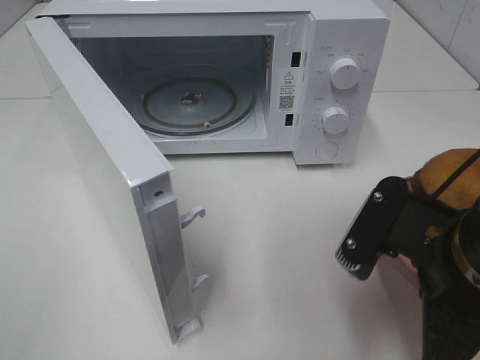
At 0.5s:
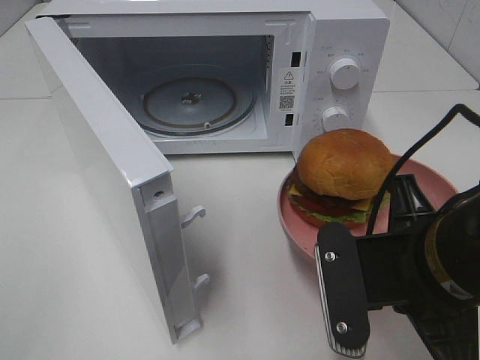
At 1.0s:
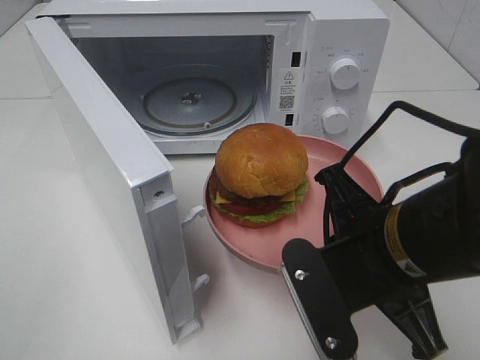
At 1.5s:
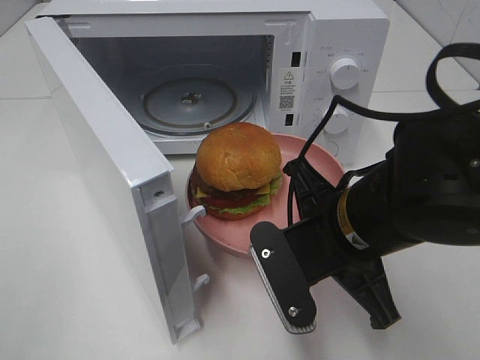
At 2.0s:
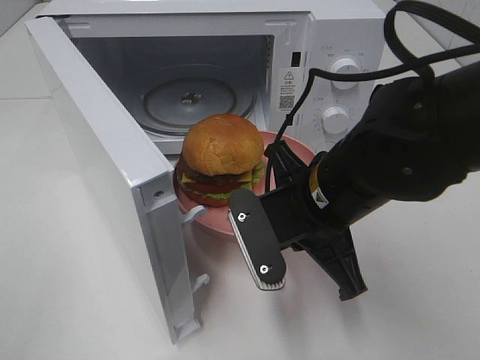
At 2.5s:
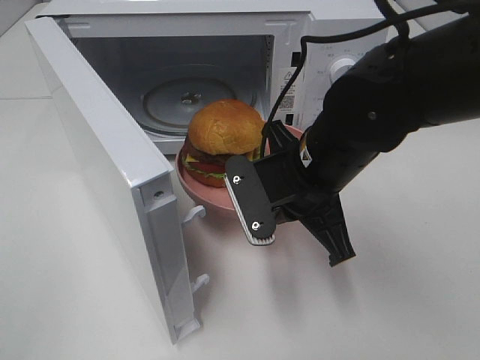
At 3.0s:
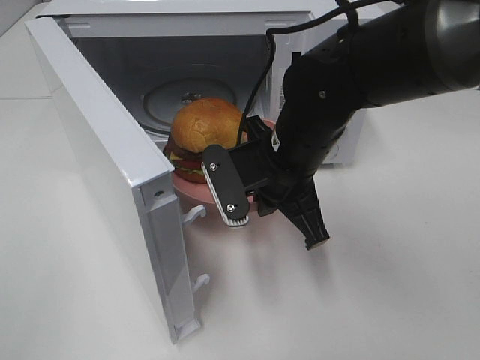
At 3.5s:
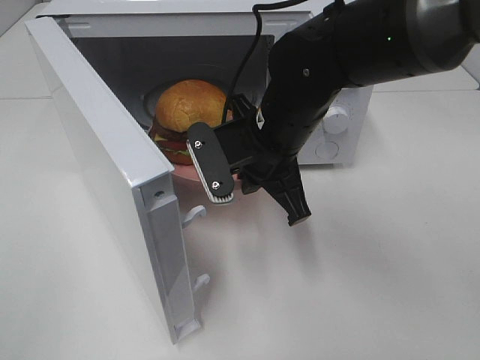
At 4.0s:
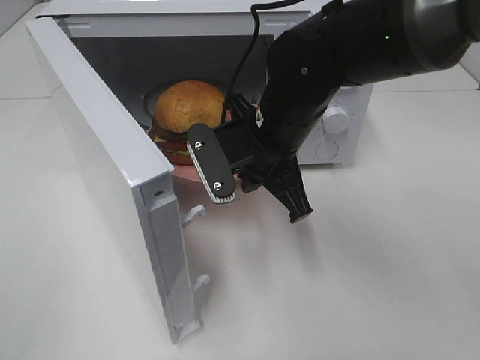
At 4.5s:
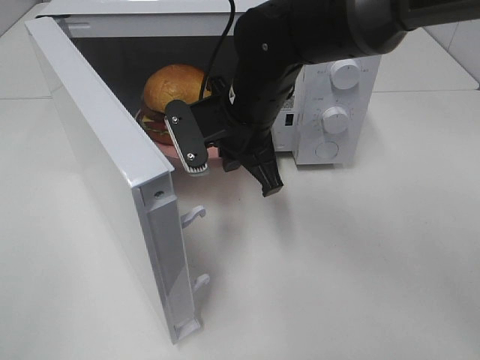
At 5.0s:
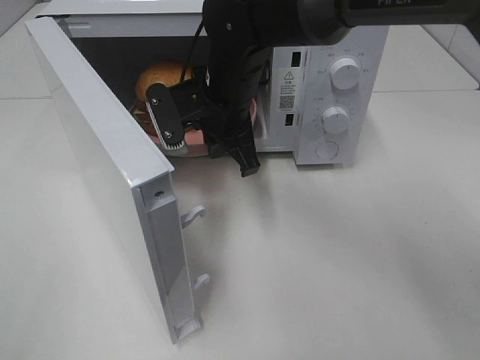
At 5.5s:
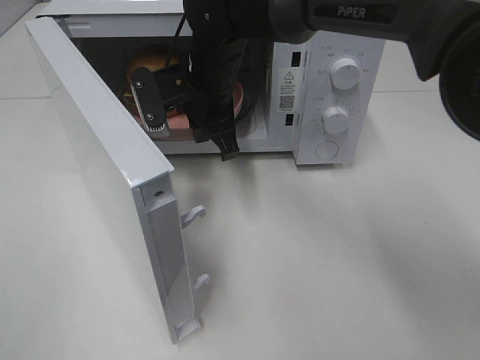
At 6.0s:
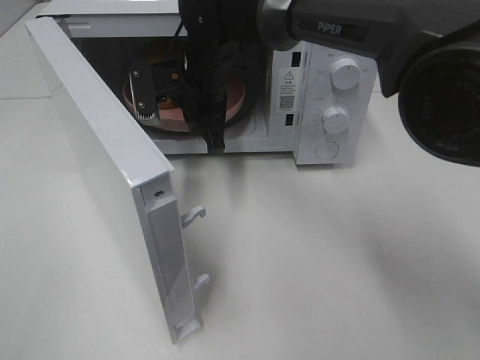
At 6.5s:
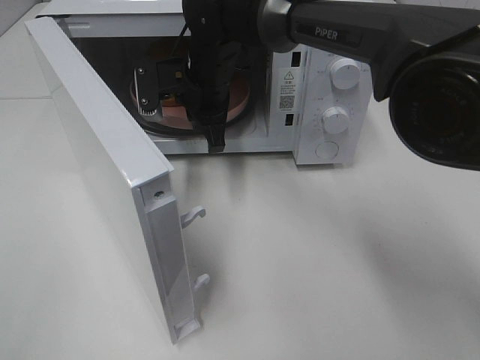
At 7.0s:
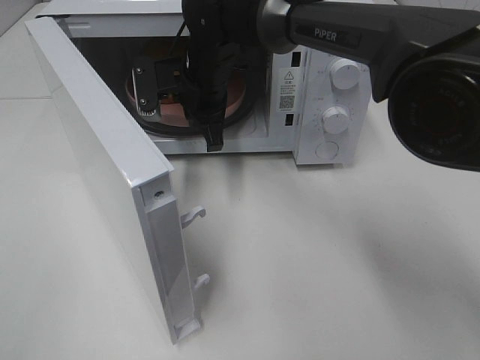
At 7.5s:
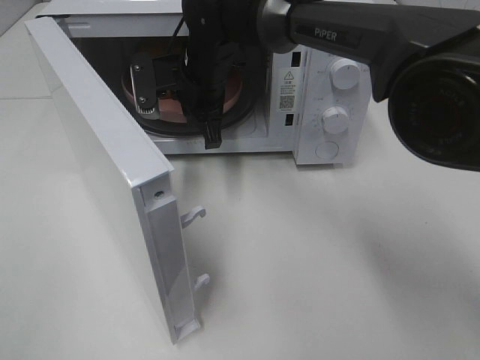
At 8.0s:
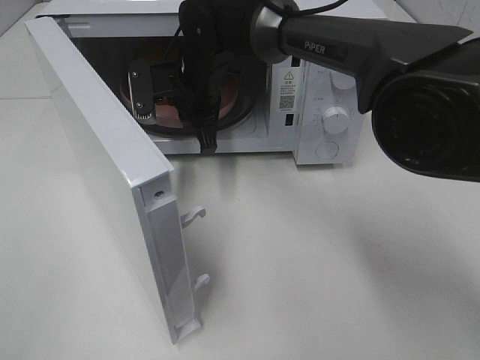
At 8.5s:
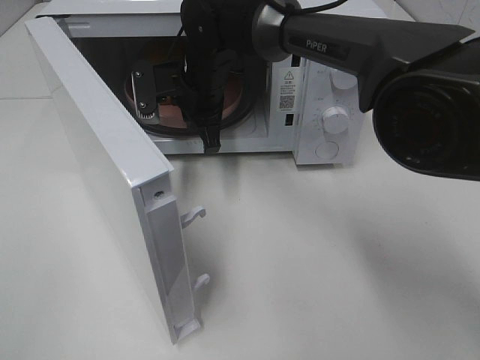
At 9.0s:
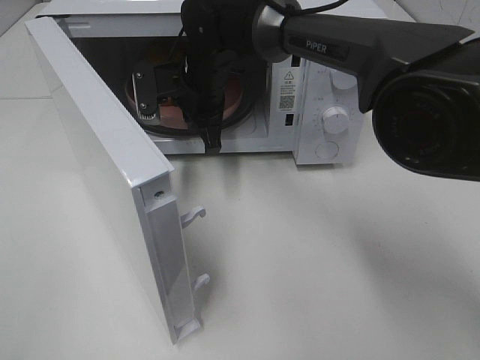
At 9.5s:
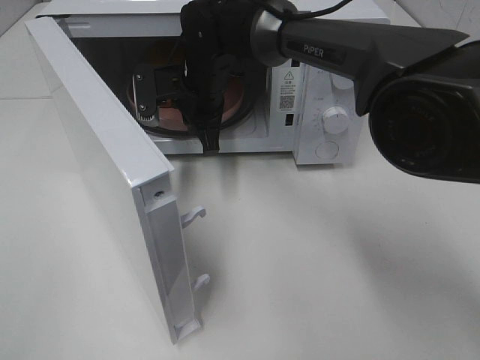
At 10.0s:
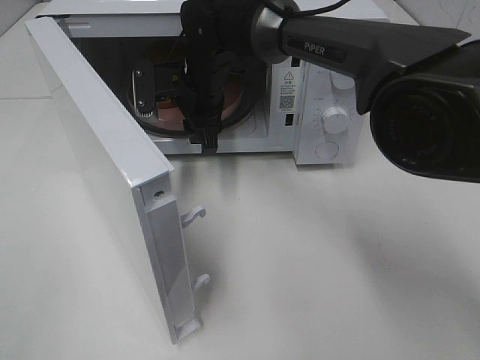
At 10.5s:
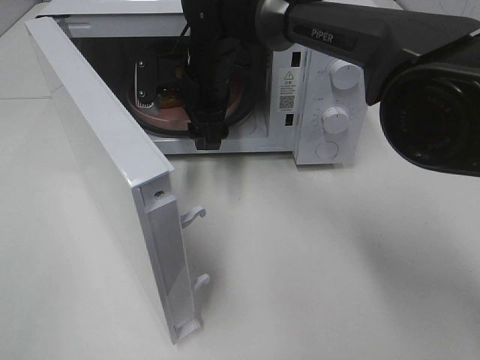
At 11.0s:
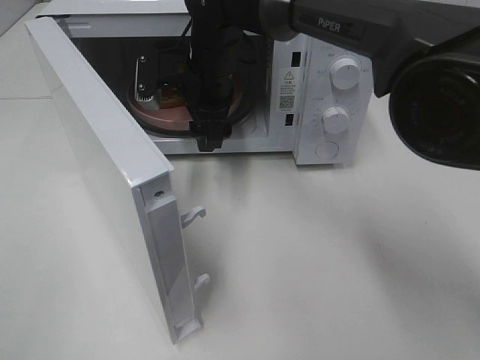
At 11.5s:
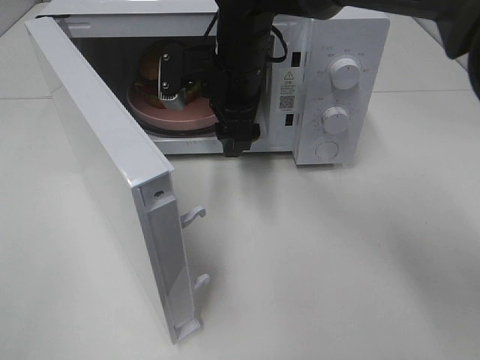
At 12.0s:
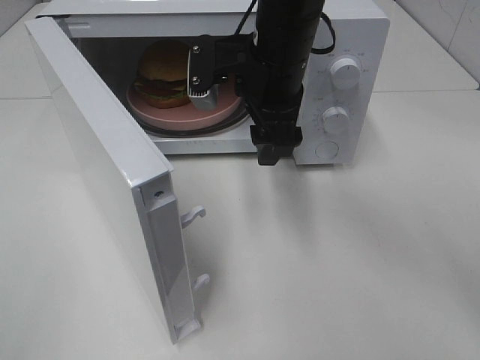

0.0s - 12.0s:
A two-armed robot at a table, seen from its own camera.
Task of the whole recording: Heat the burger.
Step, 0.0s - 9.5s: Right hand: place the plate in the microwave.
0.0s - 2.0s: The right gripper moves forward and to the left, about 10 cm.
2.0s - 4.0s: The right gripper heads forward, covering roughly 10 cm.
4.0s - 6.0s: The right gripper goes some 15 cm forward and to the left.
6.0s - 8.0s: The grippers stay close to where they were, moving slightly.
8.0s - 10.0s: The right gripper opens up.
10.0s - 12.0s: The right gripper travels backward, to the right and upward by roughly 15 cm.

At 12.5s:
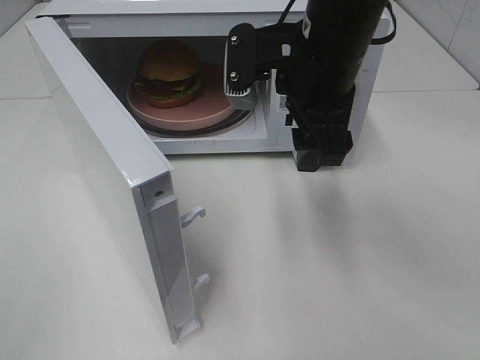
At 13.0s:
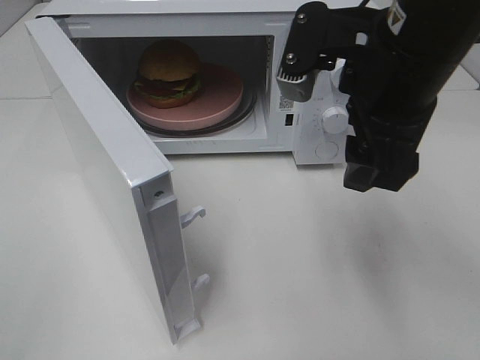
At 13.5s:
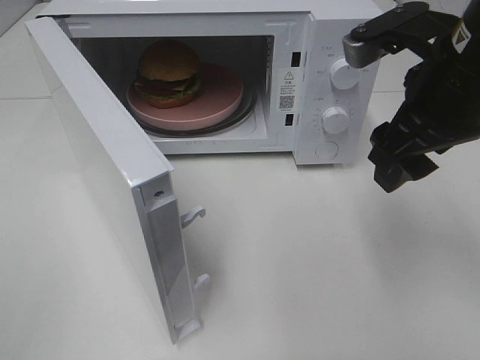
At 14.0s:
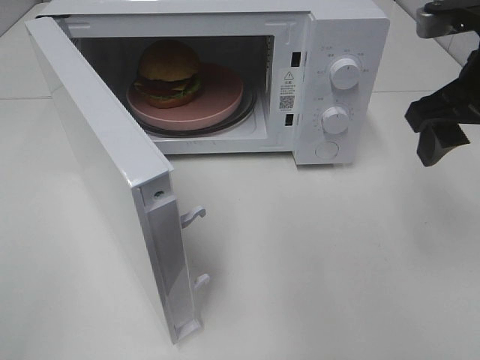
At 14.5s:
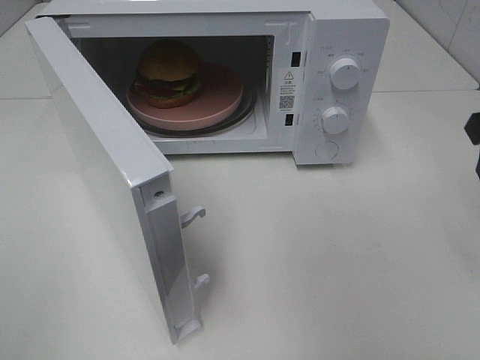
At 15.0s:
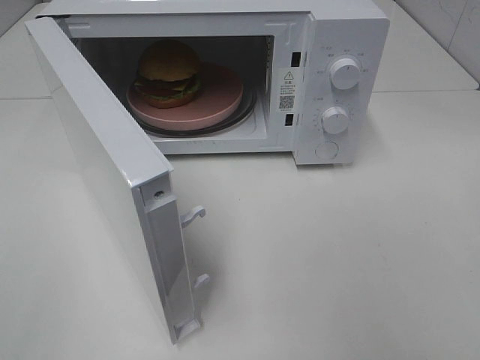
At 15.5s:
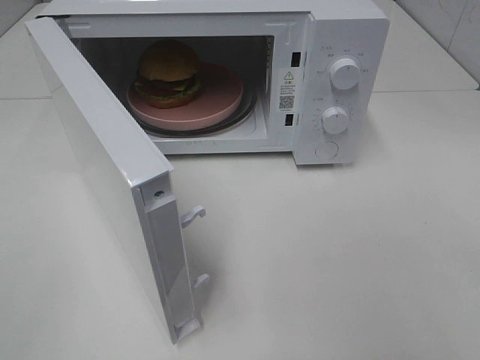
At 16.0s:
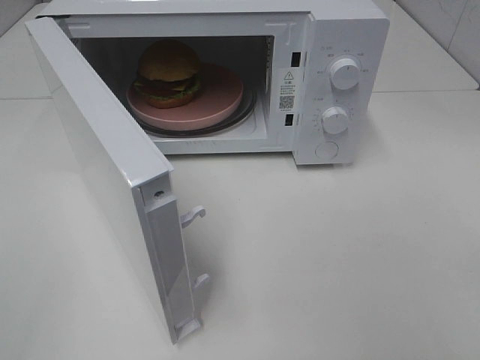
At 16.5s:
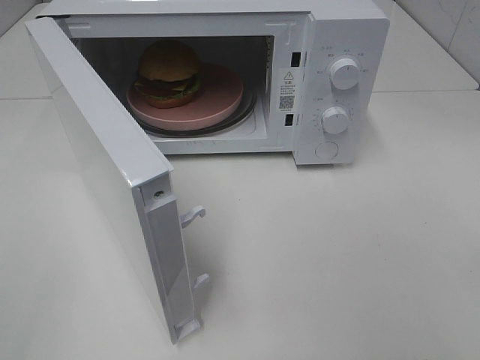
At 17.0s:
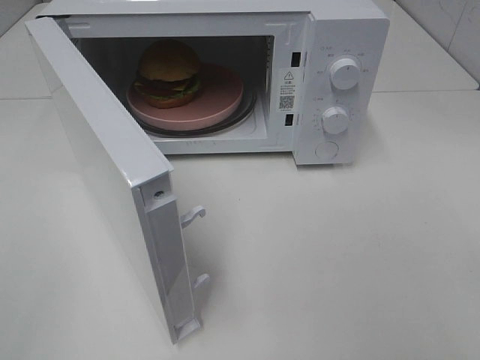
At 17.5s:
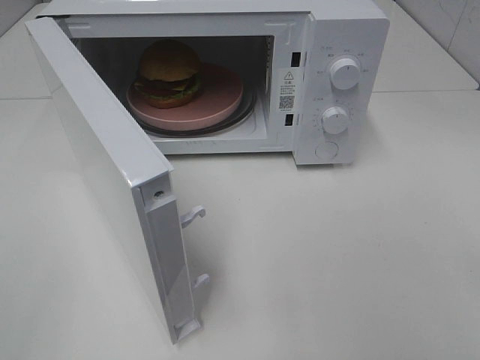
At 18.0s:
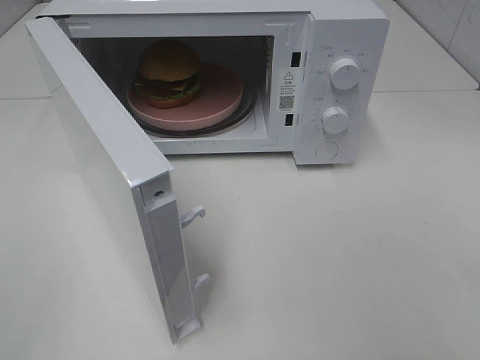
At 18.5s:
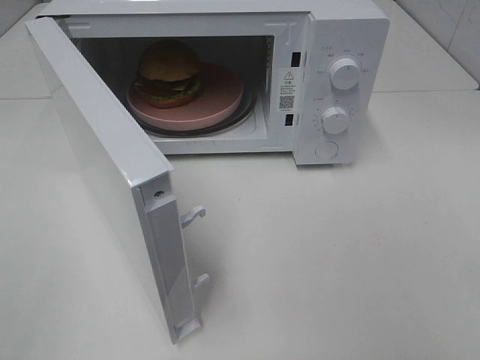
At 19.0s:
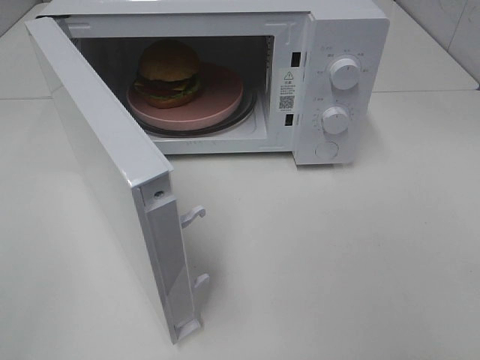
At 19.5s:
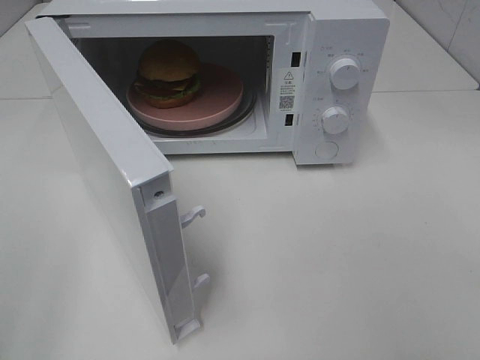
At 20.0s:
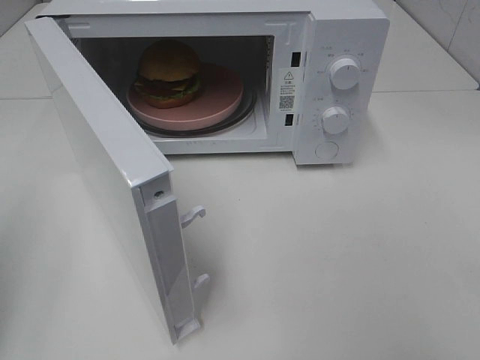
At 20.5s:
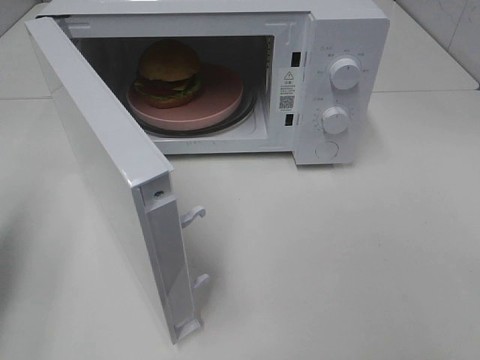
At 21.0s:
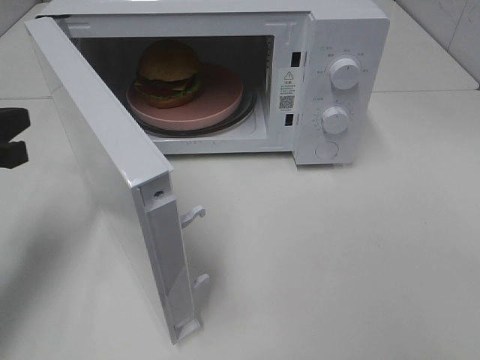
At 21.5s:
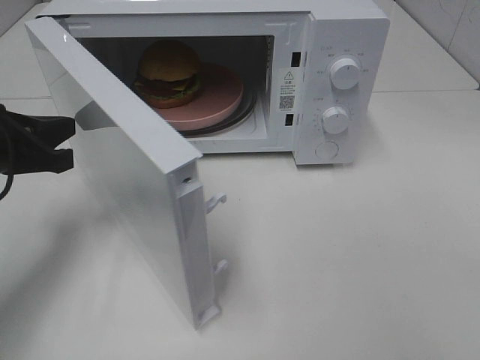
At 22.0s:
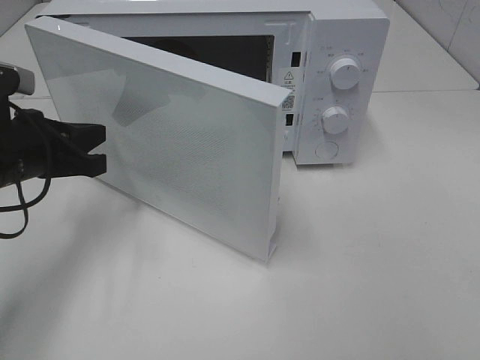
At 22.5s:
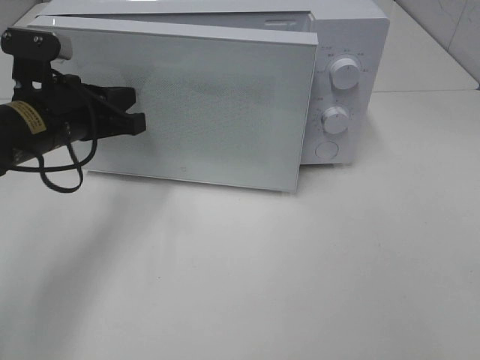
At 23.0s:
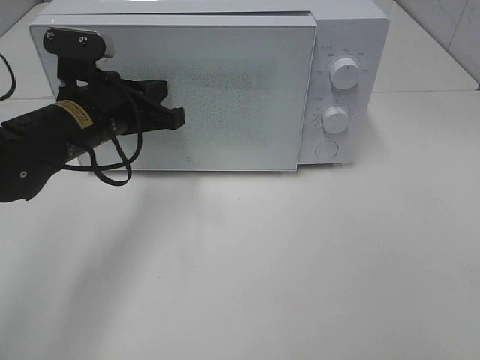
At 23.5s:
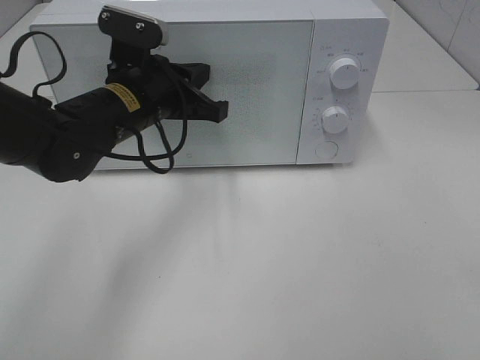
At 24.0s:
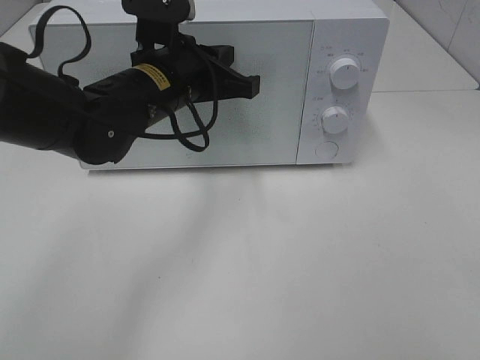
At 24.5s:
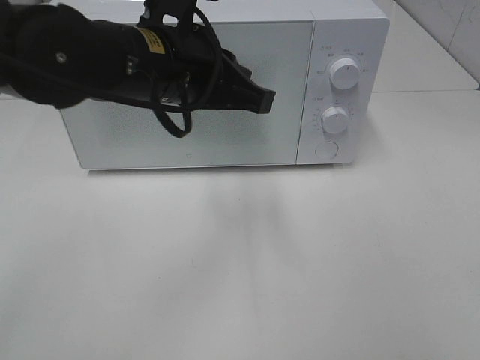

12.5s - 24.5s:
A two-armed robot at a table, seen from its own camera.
Task of the whole recording: Heat the burger.
Step, 12.5s - 23.5s: Left hand: close the microwave door.
12.5s - 14.5s: The right gripper heads to the right, covering approximately 20 cm.
14.5s - 16.5s: The right gripper moves backward, roughly 25 cm.
18.5s - 20.5s: The left gripper is displaced forward by roughly 20 cm, and closes up.
20.5s - 22.5s: The left gripper moves to the right and forward, about 20 cm.
22.5s - 24.5s: The left gripper goes some 15 cm to the right and upward.

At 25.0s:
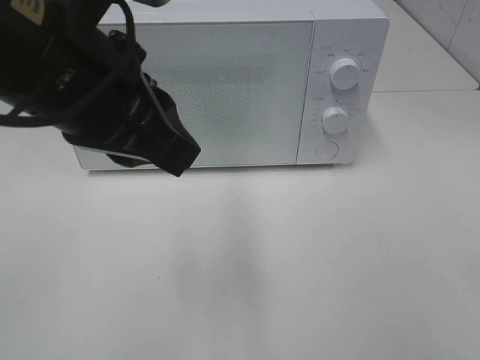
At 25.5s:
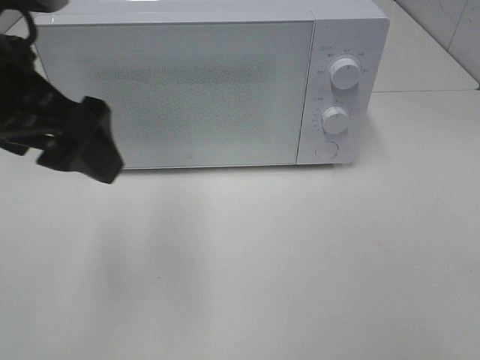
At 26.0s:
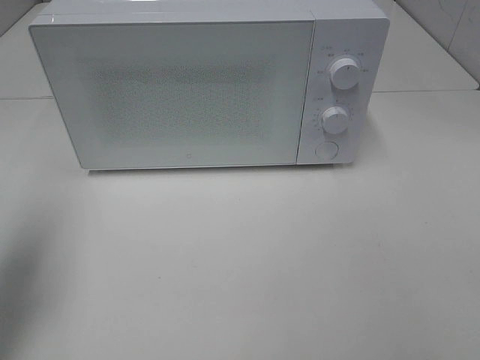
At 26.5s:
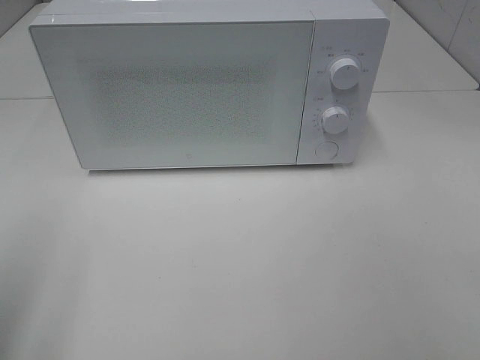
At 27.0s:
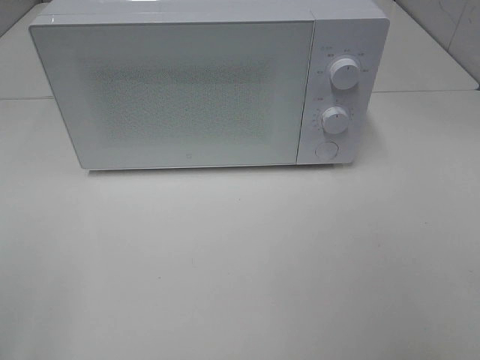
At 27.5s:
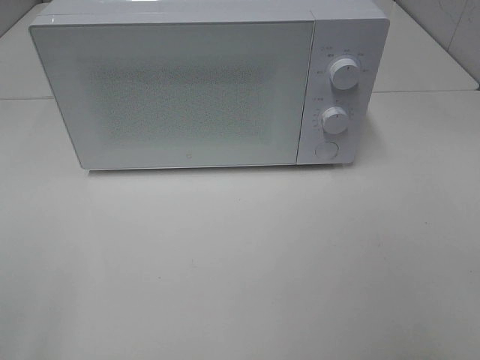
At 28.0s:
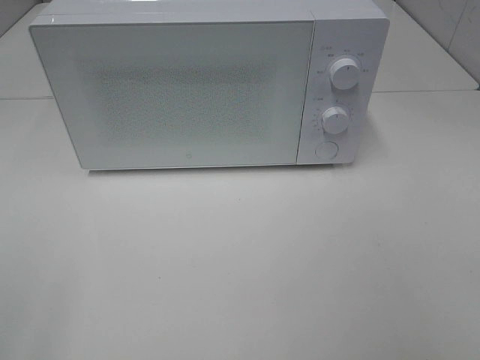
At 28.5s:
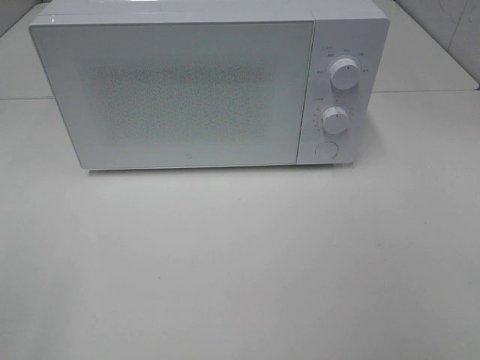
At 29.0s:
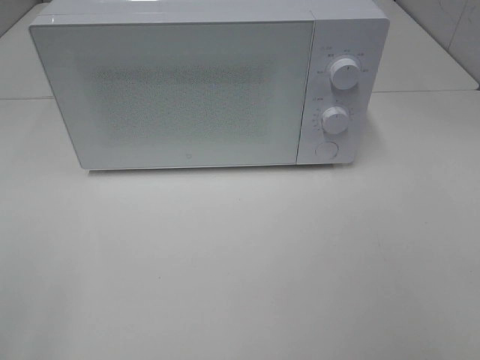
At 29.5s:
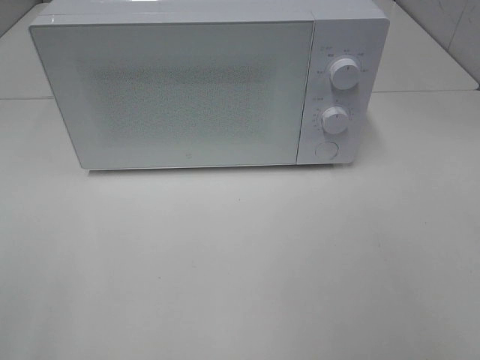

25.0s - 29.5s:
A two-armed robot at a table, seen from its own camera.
Task of the whole recording: Heat the burger.
25.0s - 27.0s: The left gripper shifts roughly 30 cm to the left and backward, and opens.
